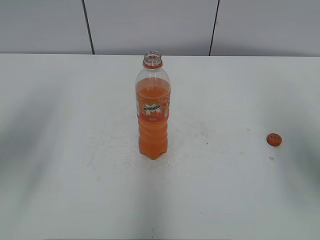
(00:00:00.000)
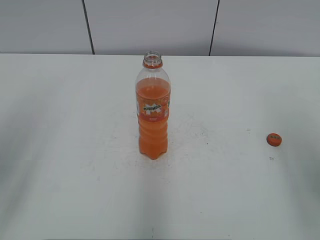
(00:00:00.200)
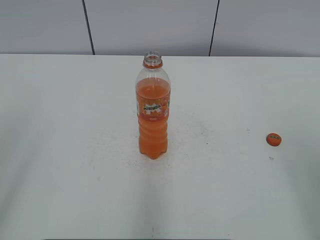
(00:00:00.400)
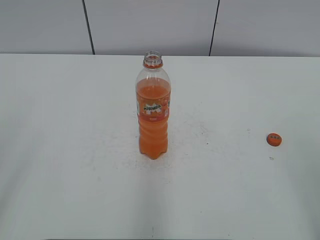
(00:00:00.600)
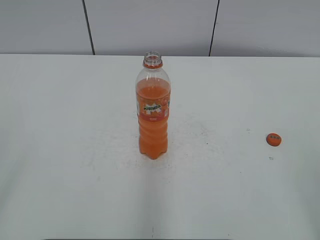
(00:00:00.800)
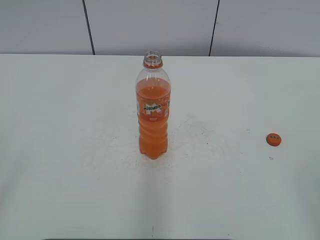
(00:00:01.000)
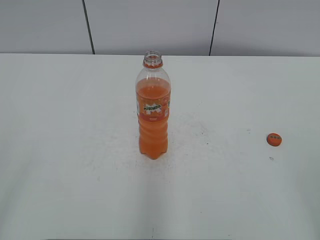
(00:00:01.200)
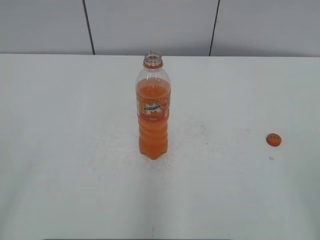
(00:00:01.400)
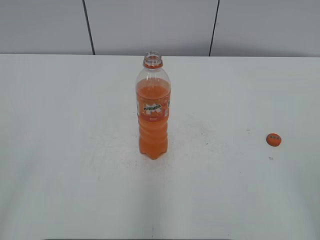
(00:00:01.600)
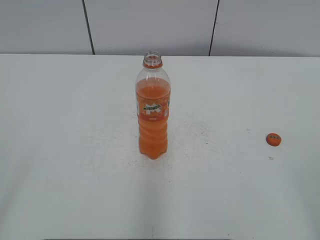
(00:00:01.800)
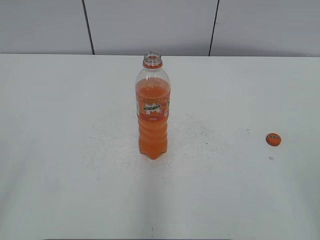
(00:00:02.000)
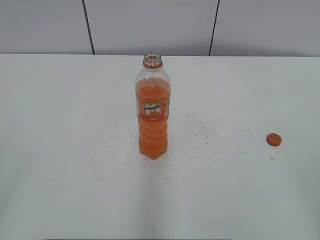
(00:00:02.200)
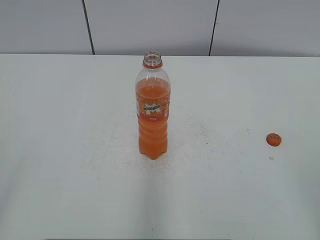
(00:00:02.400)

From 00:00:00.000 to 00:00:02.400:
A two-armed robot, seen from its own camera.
From 00:00:00.000 to 00:00:01.200: The two grippers go some 20 cm backward.
